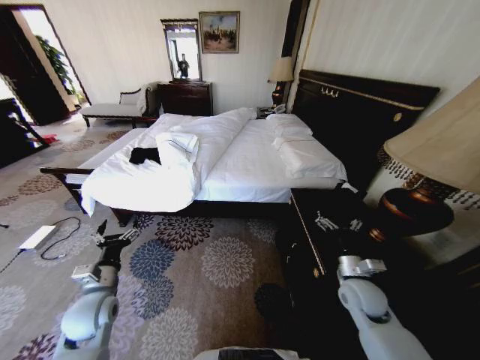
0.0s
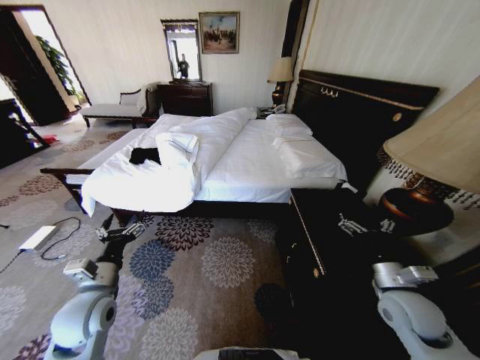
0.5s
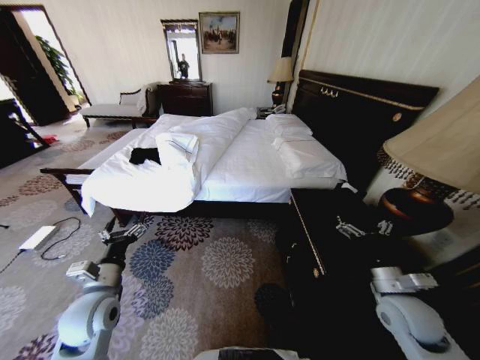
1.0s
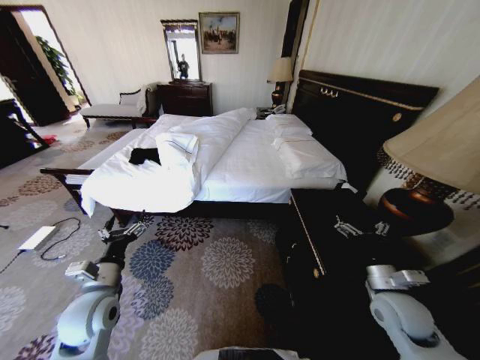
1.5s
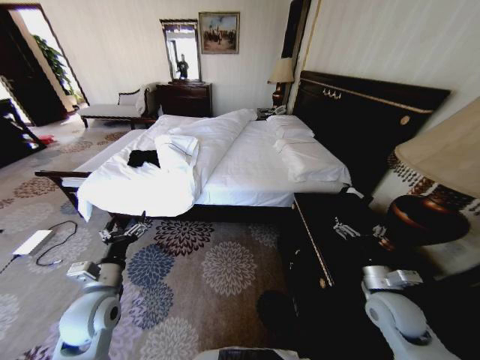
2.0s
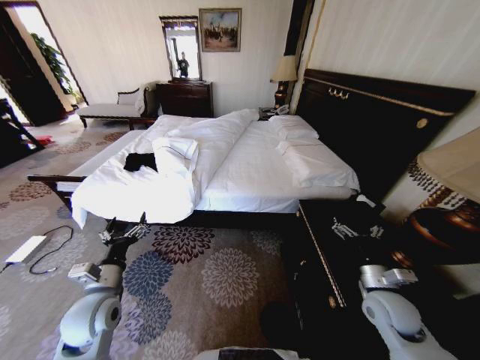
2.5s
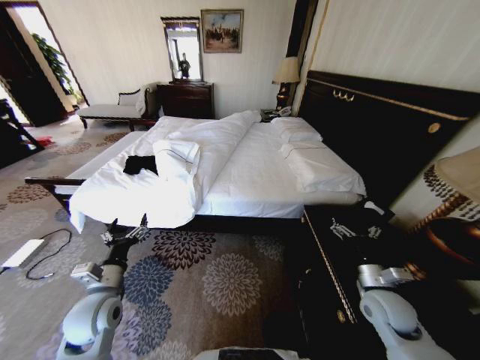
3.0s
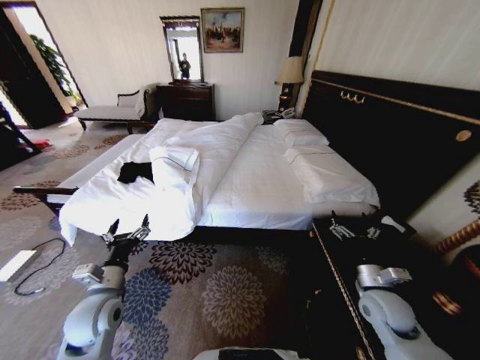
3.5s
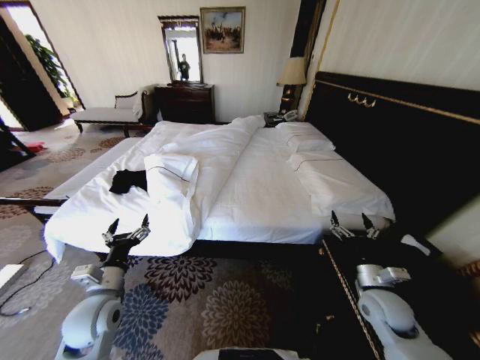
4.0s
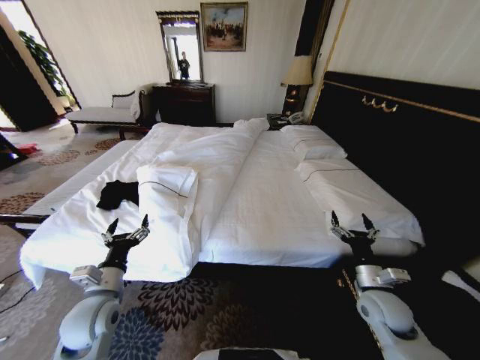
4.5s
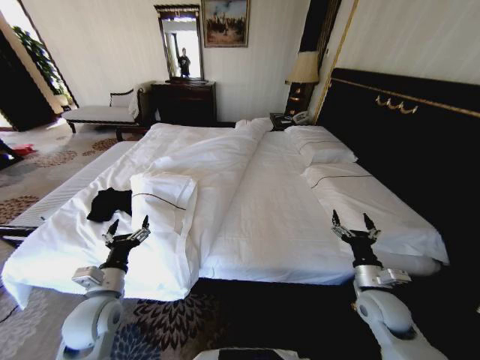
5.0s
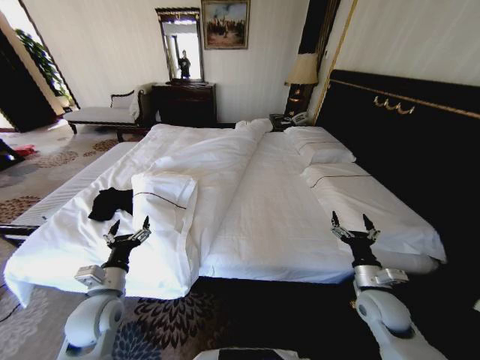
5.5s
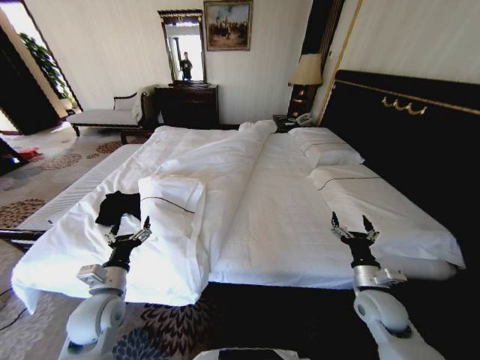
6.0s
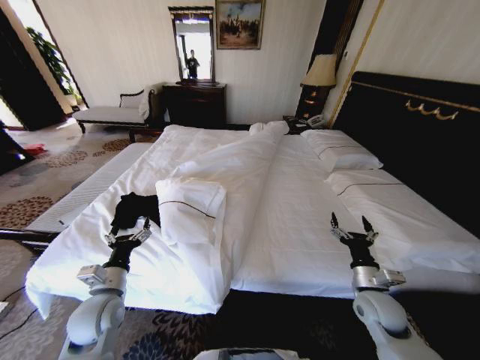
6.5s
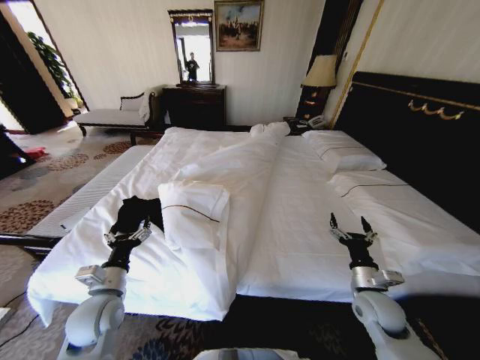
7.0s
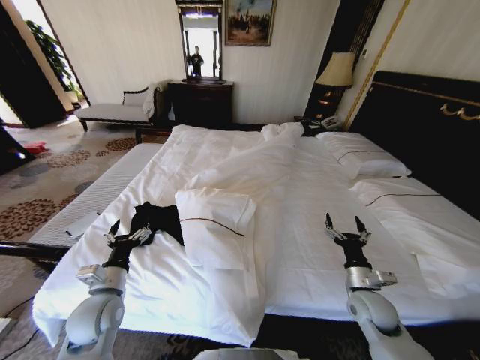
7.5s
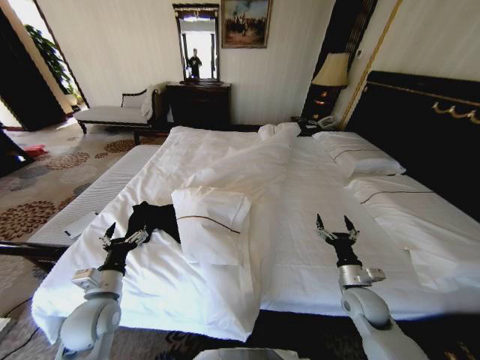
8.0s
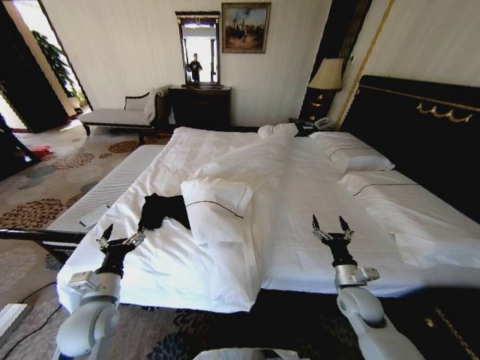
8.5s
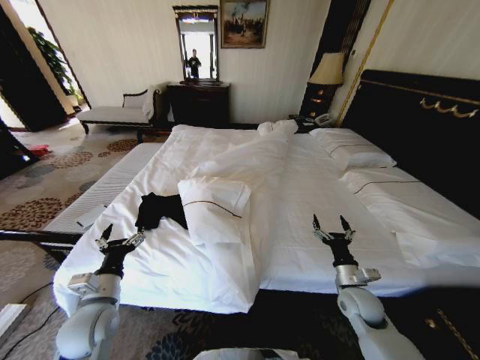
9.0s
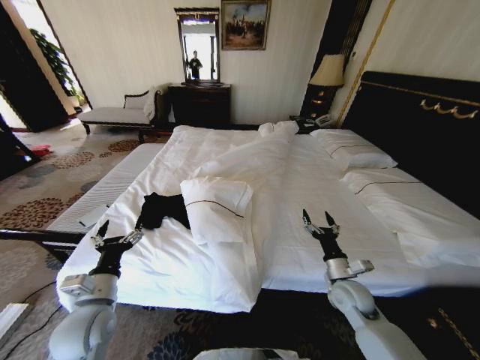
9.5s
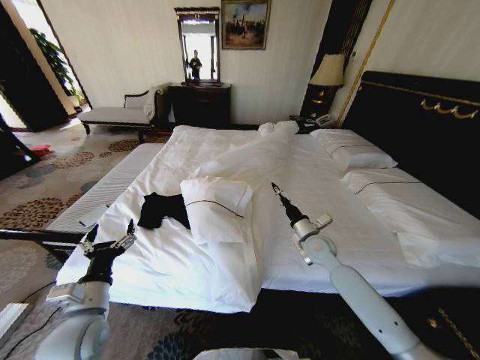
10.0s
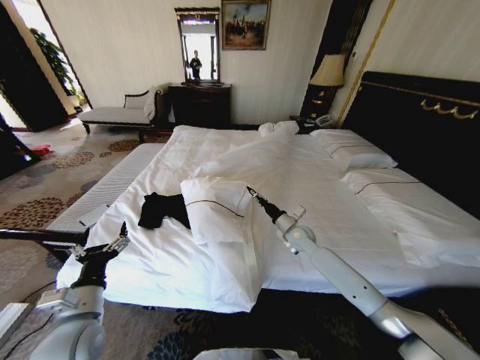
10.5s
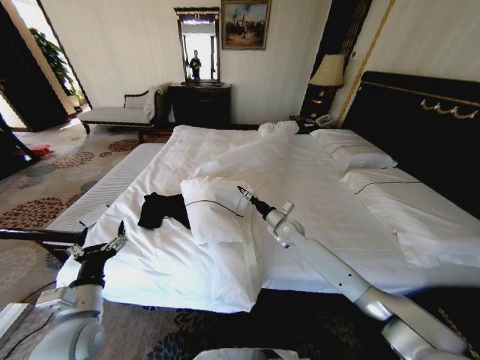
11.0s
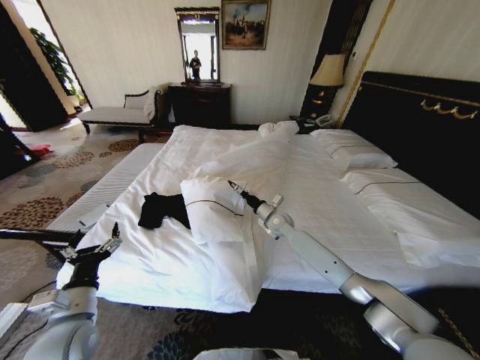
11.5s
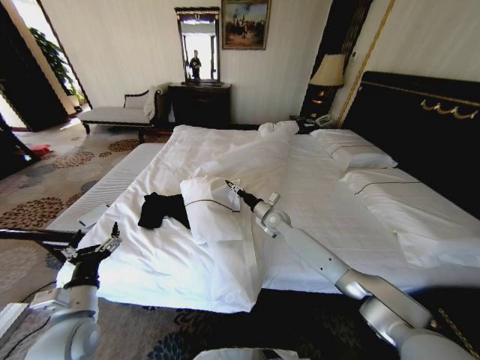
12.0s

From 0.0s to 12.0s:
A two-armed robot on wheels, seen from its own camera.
Task of the whole recording: Fold the clothes on the bed.
From 8.0s to 10.0s: The right gripper travels forward, to the left and upward by approximately 20 cm.
From 10.0s to 12.0s: The right gripper goes approximately 15 cm forward and to the left, and closes its fingers.

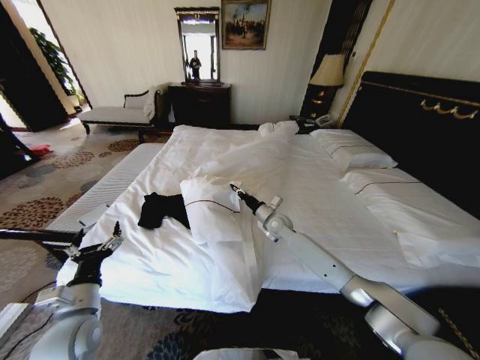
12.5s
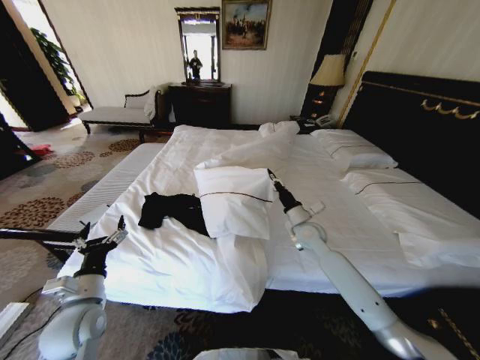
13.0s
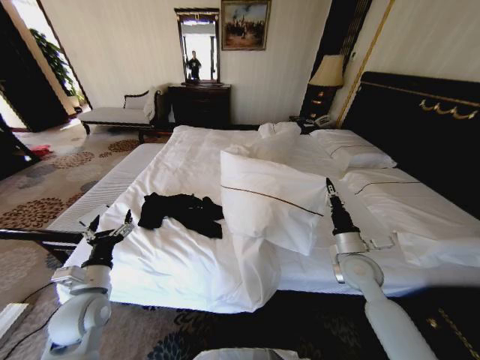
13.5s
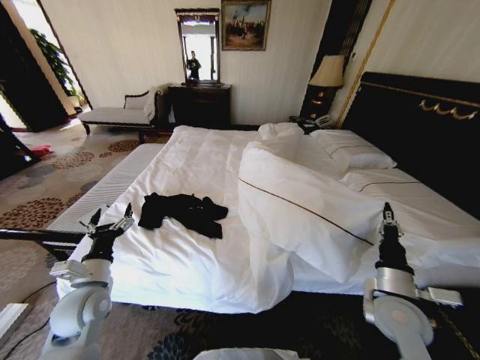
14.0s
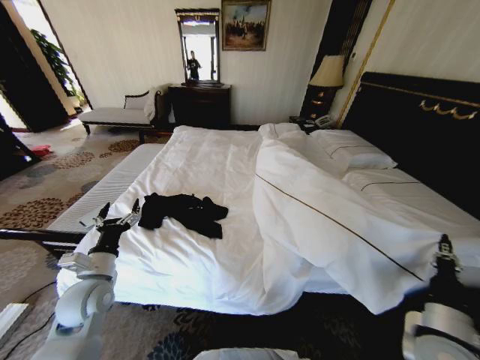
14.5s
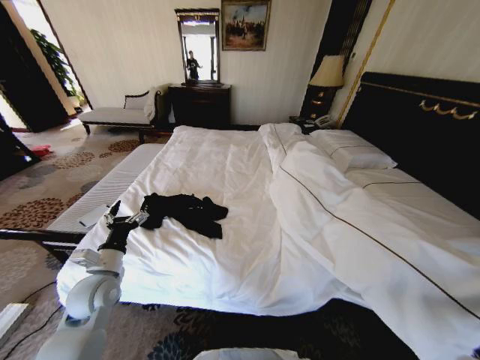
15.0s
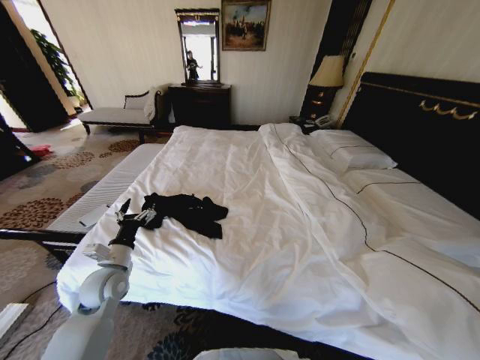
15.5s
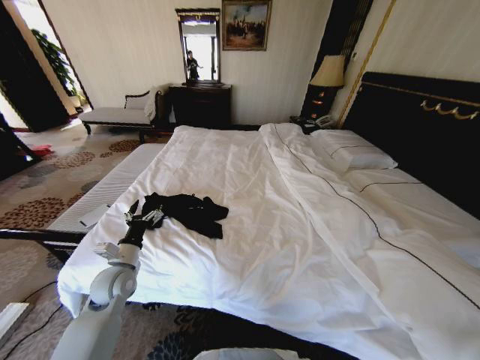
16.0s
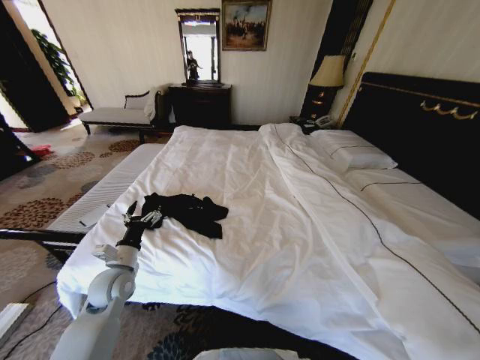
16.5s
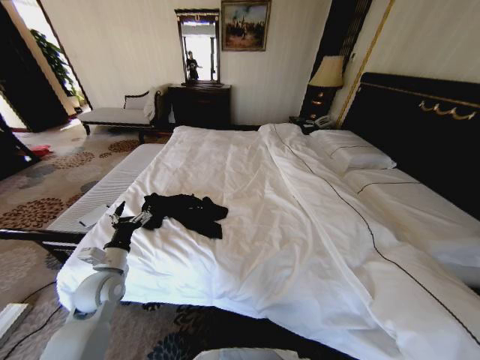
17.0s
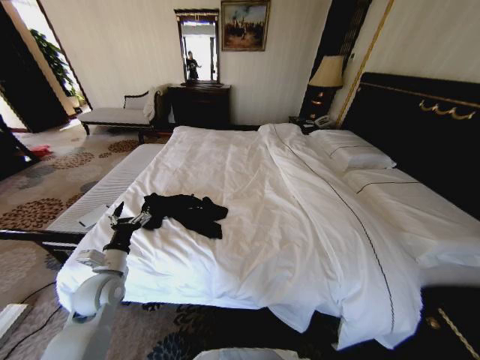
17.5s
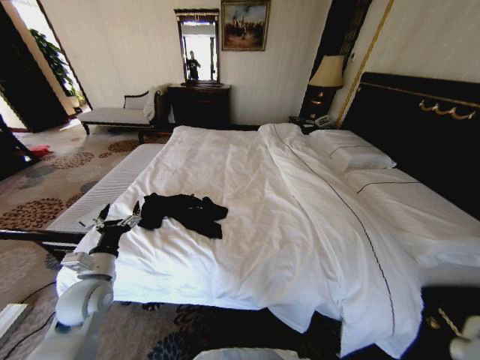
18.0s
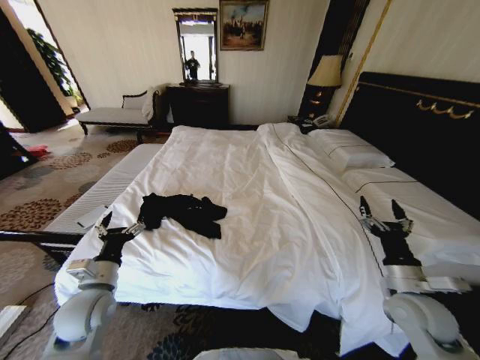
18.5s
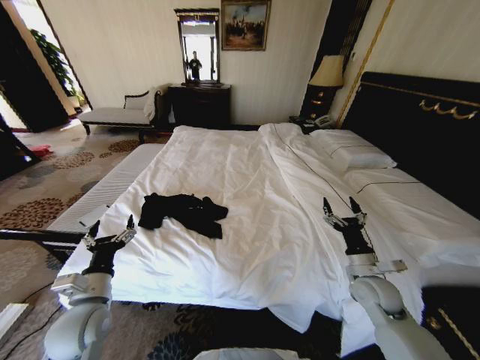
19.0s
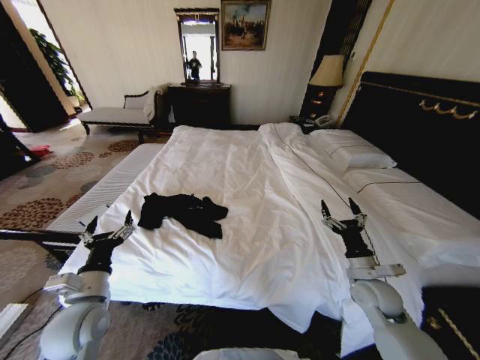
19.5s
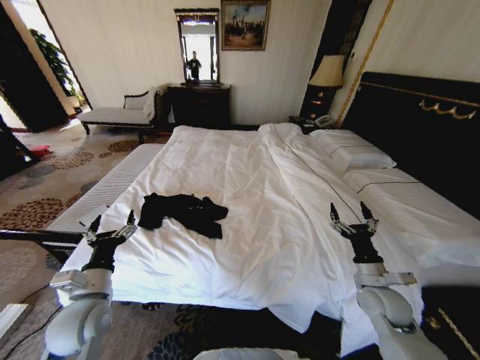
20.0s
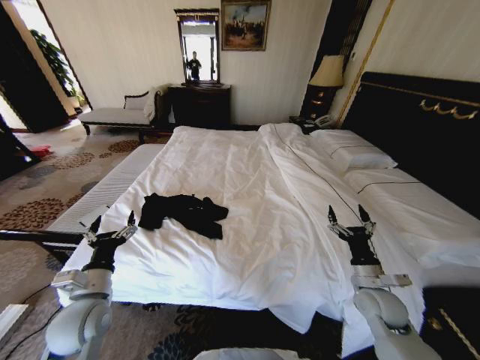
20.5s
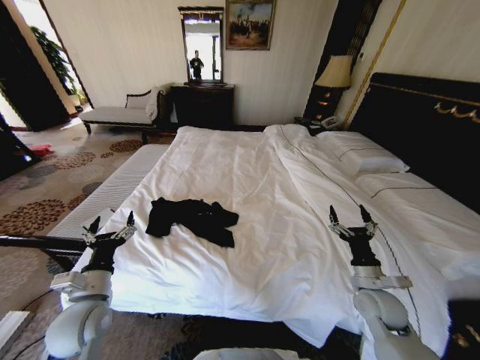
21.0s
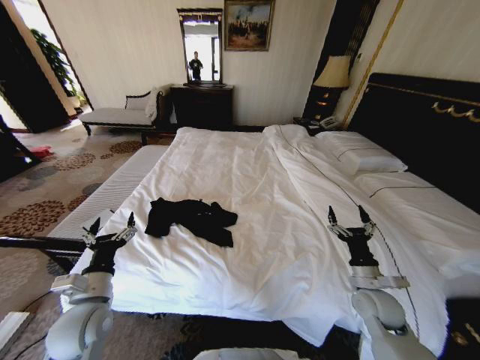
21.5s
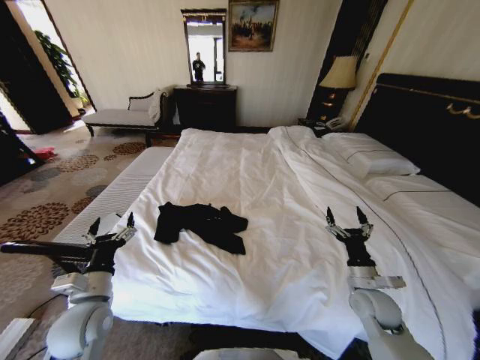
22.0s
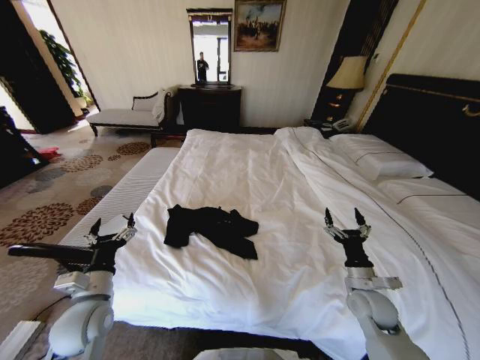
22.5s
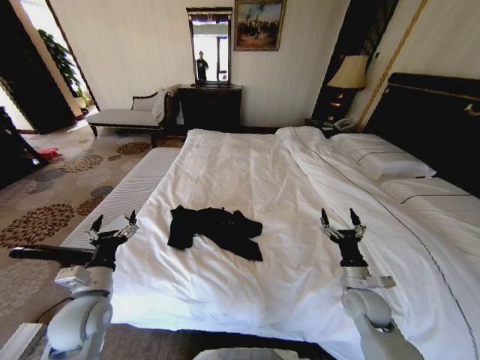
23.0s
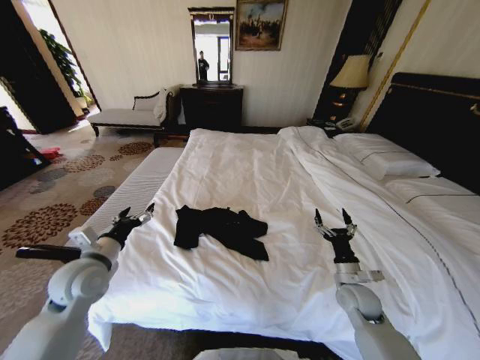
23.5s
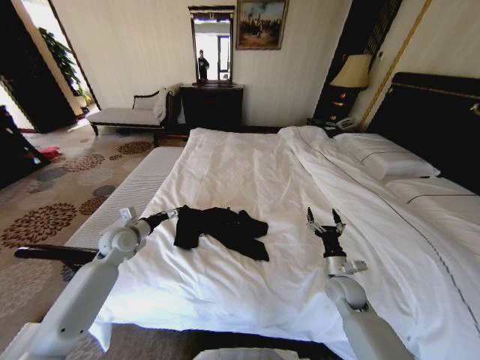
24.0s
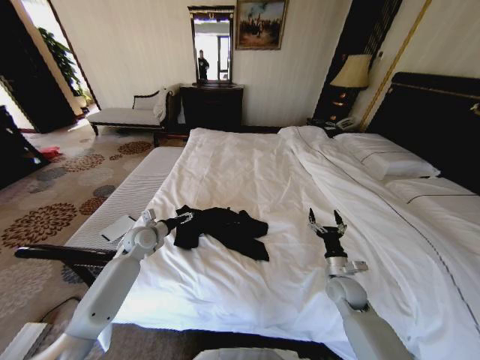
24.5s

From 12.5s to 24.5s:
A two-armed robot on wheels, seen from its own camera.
Task of the whole recording: Fold the clothes on the bed.
From 12.5s to 14.5s: The right gripper heads backward and to the right, covering approximately 40 cm. The left gripper travels forward by approximately 5 cm.
From 14.5s to 16.5s: The left gripper shifts by roughly 5 cm, while the right gripper heads backward, covering roughly 15 cm.
From 16.5s to 18.5s: The right gripper shifts roughly 20 cm forward, and opens. The left gripper moves backward, roughly 5 cm.
From 18.5s to 20.5s: The right gripper travels downward by about 5 cm.
From 22.5s to 24.5s: The right gripper moves forward, approximately 5 cm, while the left gripper goes some 25 cm forward.

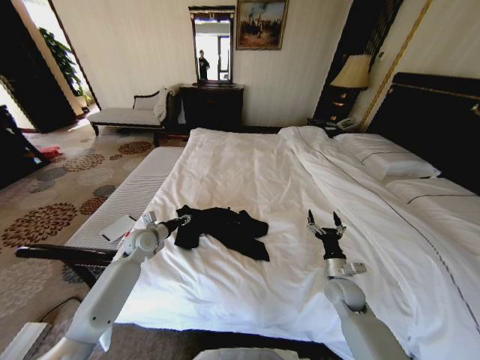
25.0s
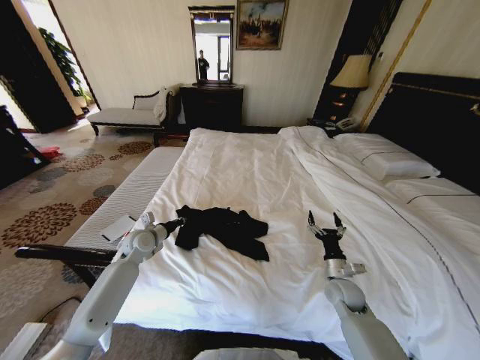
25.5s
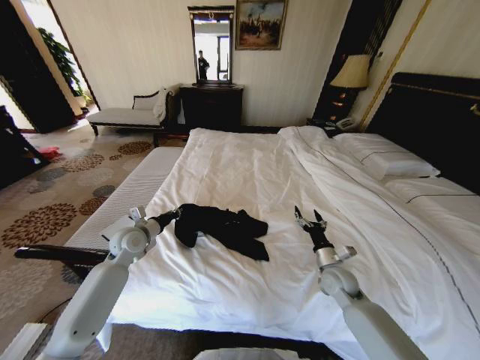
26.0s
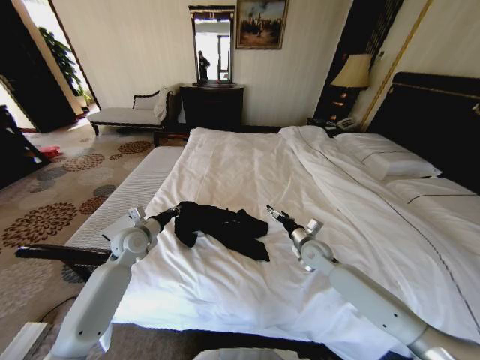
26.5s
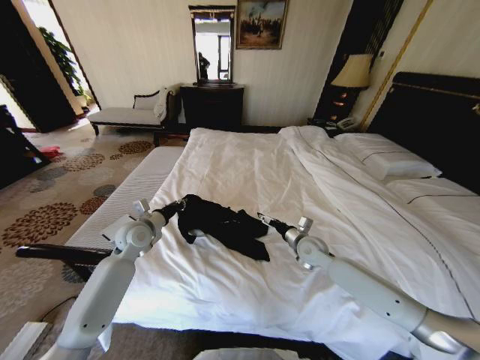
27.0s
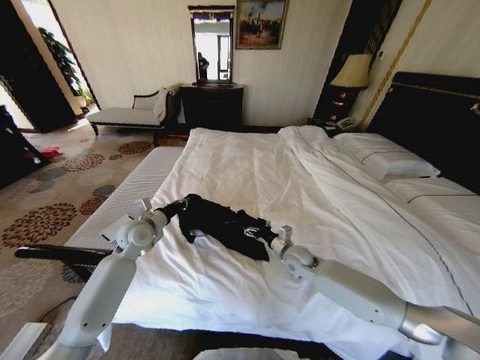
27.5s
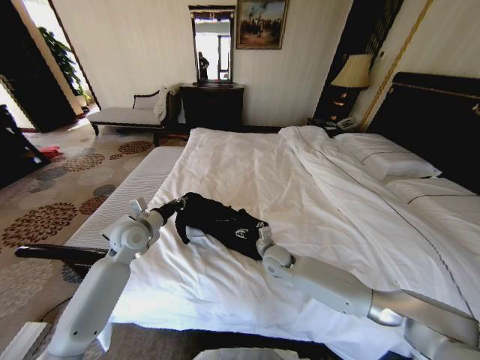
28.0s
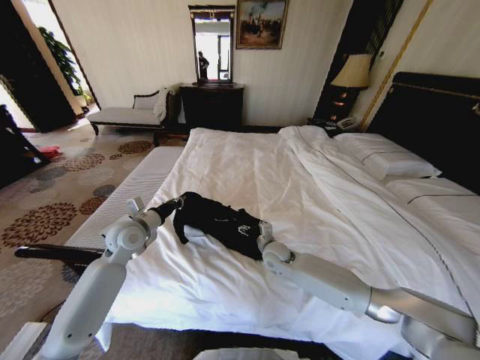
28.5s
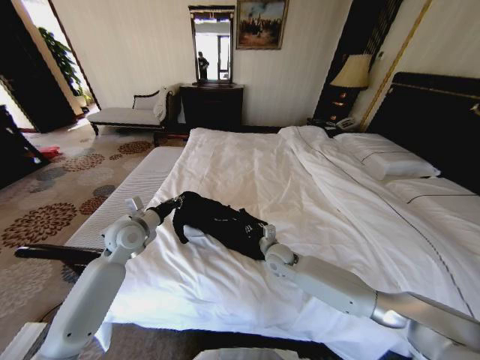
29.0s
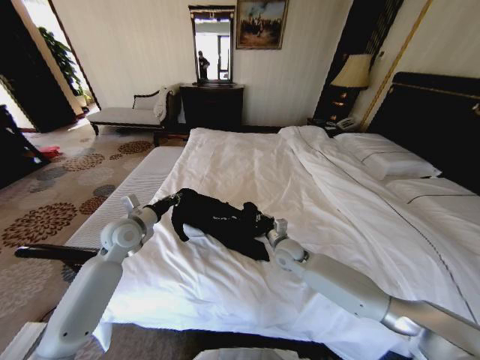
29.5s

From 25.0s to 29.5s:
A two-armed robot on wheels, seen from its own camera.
Task of the whole recording: Fold the clothes on the bed.
From 25.0s to 27.0s: The left gripper is displaced upward by roughly 5 cm, and closes up. Meanwhile the right gripper goes approximately 15 cm forward, to the left and upward.
From 27.0s to 29.5s: The right gripper goes some 10 cm to the left, and closes its fingers.
